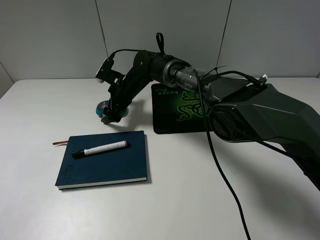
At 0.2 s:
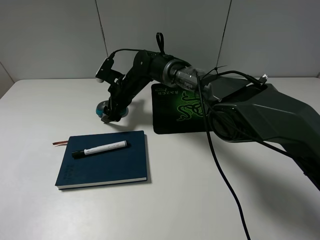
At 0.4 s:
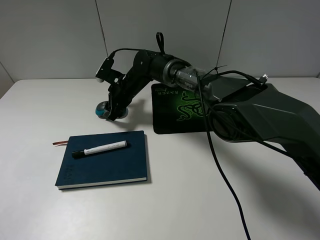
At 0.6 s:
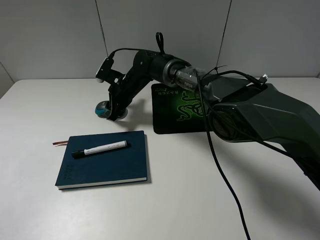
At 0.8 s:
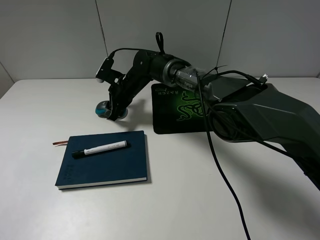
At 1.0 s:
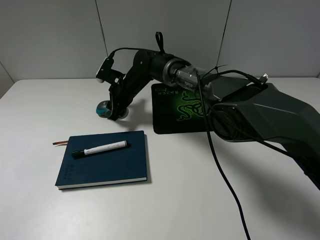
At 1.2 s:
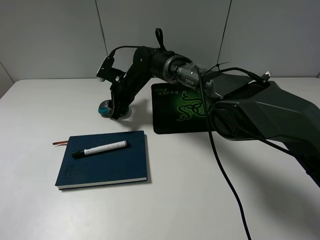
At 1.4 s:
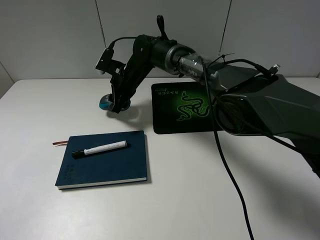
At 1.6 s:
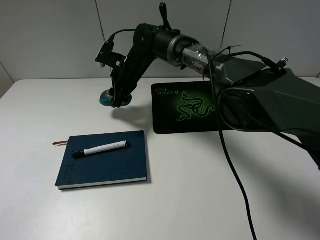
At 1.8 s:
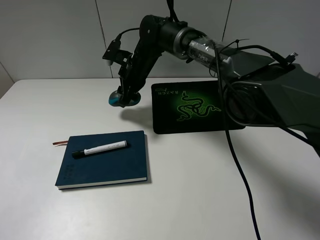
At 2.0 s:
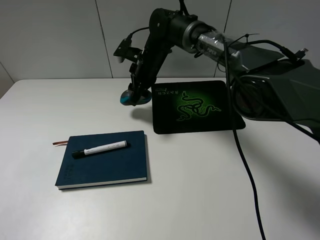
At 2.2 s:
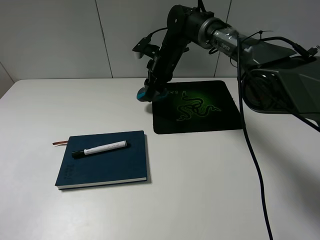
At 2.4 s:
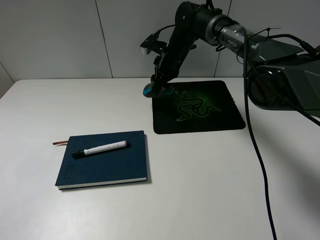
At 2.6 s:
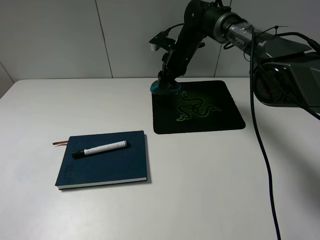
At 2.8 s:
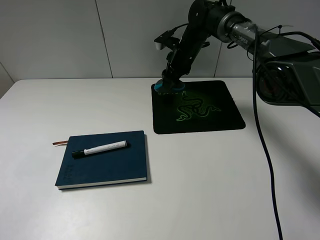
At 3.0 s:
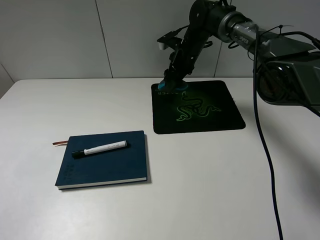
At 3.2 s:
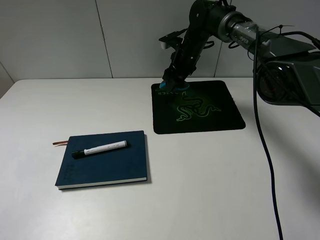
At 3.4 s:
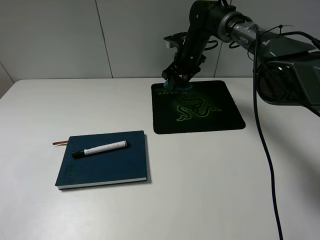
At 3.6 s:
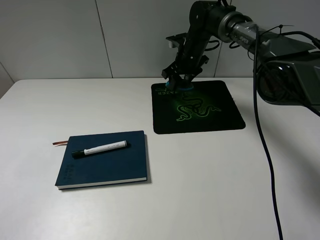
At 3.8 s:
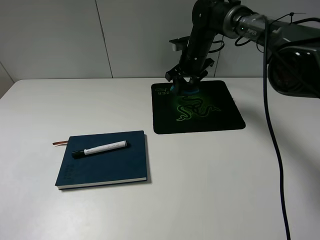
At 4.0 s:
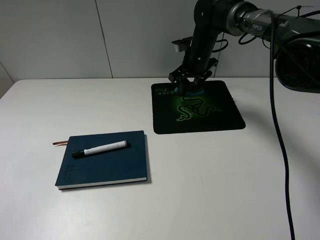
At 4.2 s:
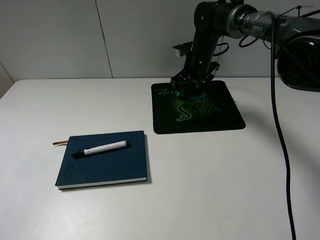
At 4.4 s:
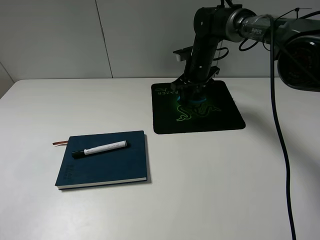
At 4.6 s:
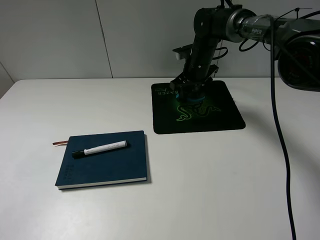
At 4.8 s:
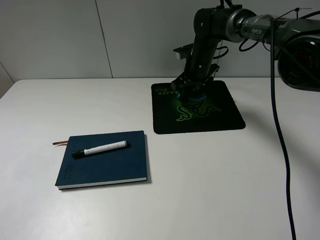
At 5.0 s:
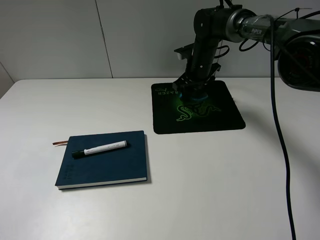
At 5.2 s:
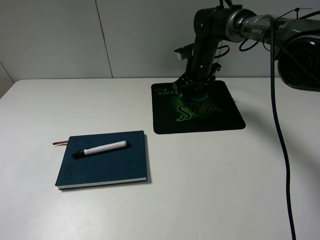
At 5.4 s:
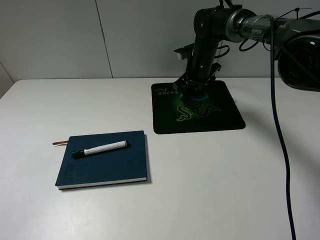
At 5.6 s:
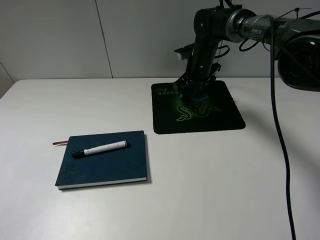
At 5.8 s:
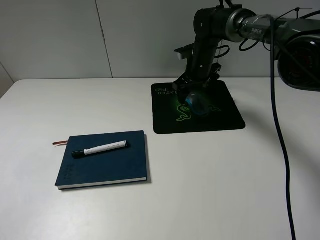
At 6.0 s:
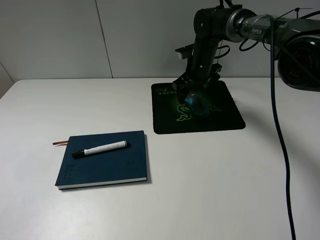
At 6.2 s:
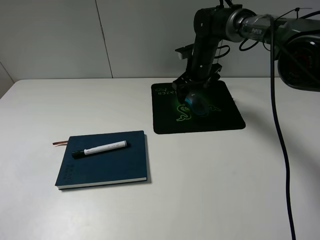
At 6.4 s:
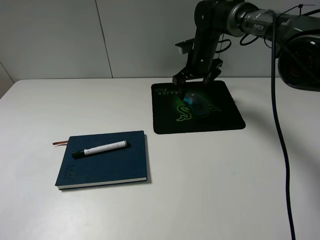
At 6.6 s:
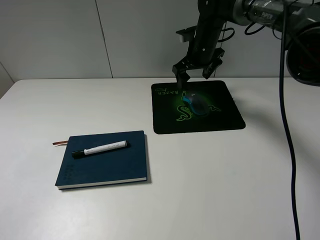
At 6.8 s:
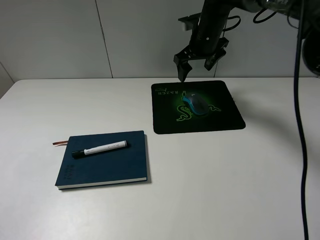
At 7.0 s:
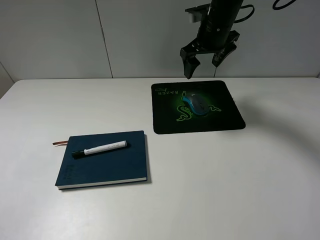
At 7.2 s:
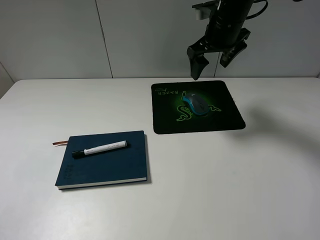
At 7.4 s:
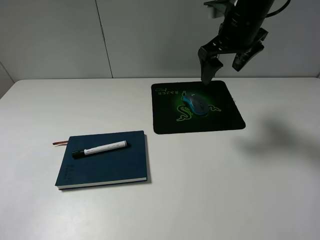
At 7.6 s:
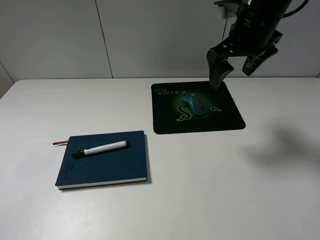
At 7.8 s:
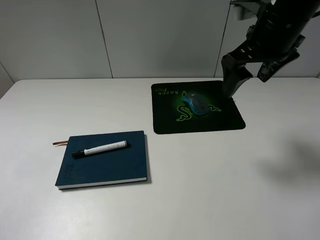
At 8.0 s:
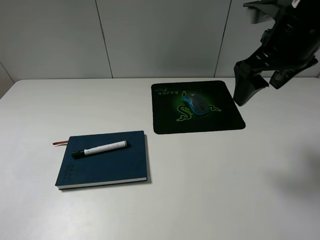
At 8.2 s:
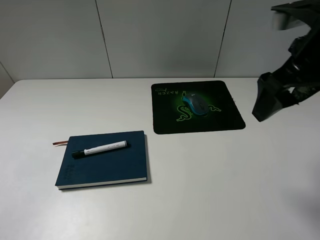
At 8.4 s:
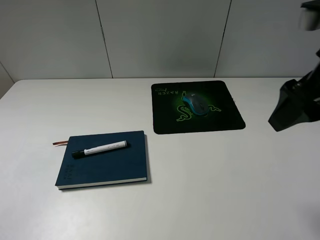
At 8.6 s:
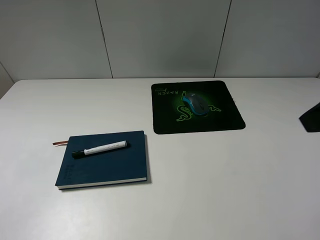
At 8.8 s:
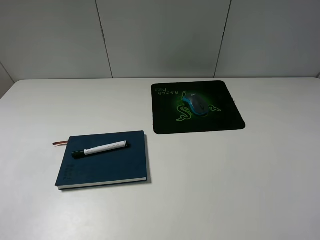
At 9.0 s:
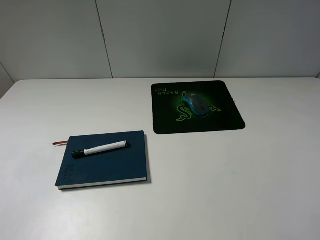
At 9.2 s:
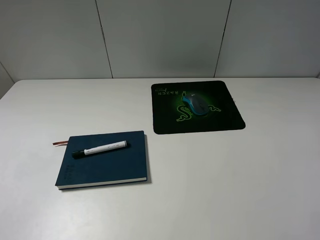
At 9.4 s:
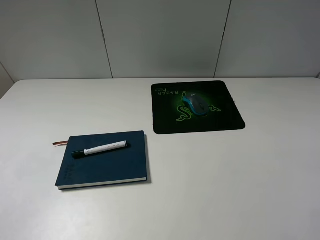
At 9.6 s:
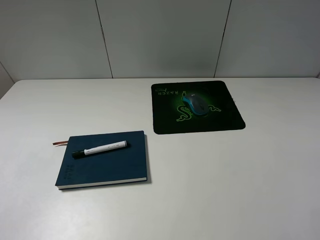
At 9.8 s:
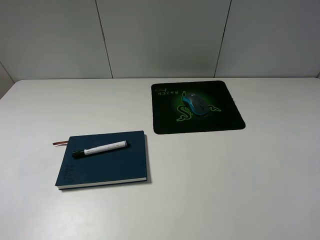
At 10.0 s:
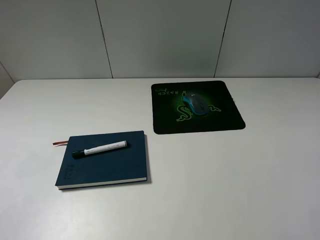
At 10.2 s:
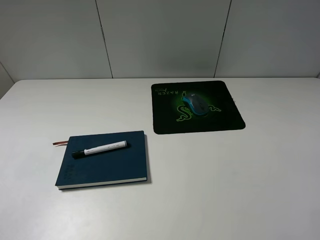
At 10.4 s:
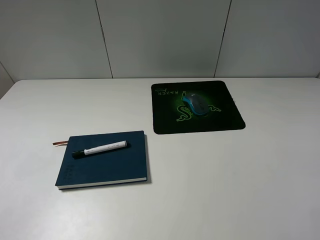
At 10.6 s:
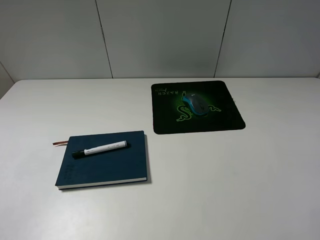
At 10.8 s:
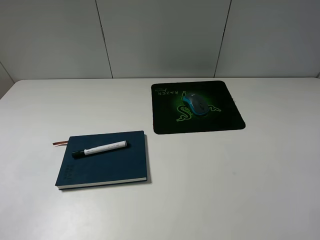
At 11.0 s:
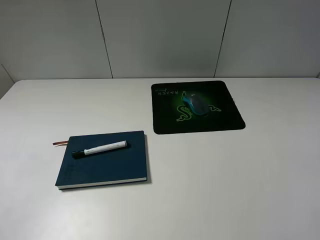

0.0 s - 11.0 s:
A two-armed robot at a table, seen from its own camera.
Step, 1.0 s - 6.4 s: Place the mouse on the mouse pad with the right gripper.
0.0 s - 1.6 s: The right gripper travels upward by some 5 cm, and closes.
1.6 s - 3.2 s: The right gripper is displaced to the right and forward by approximately 15 cm.
3.2 s - 4.8 s: There are only small adjustments of the grippers.
6.2 s - 7.8 s: The right gripper shifts about 25 cm backward, upward and to the right.
7.8 s - 9.4 s: The right gripper shifts roughly 30 cm backward.
